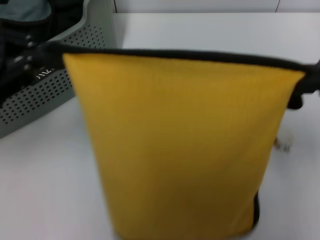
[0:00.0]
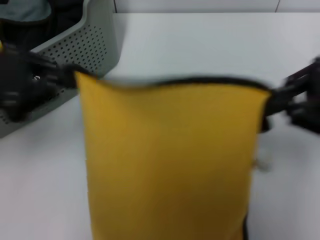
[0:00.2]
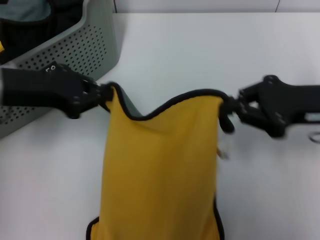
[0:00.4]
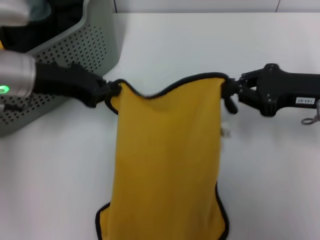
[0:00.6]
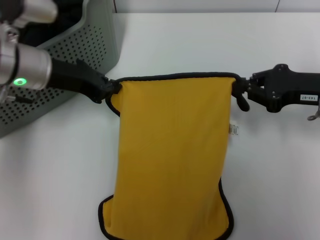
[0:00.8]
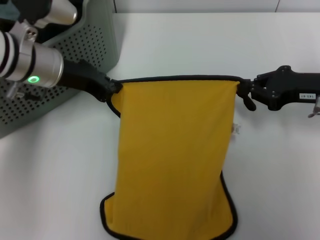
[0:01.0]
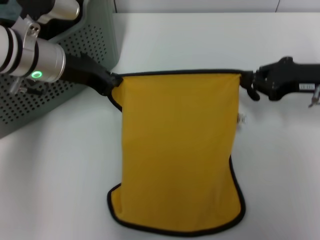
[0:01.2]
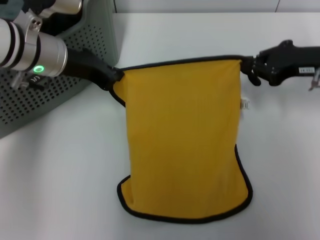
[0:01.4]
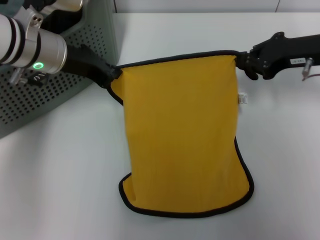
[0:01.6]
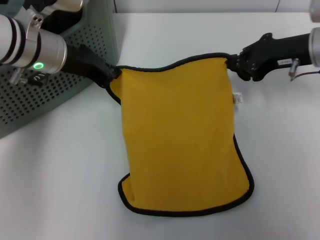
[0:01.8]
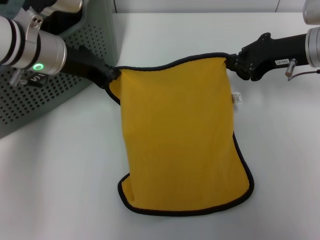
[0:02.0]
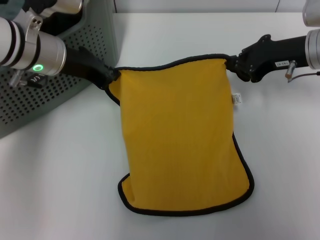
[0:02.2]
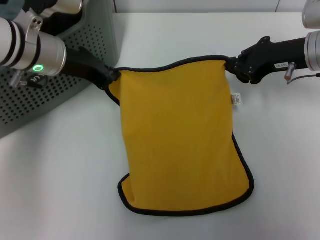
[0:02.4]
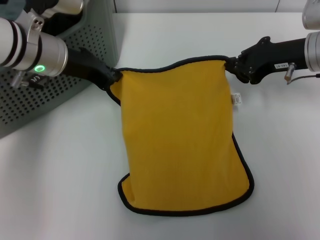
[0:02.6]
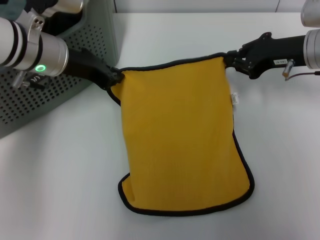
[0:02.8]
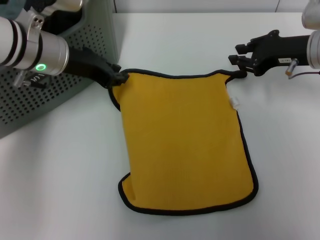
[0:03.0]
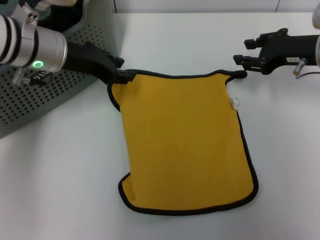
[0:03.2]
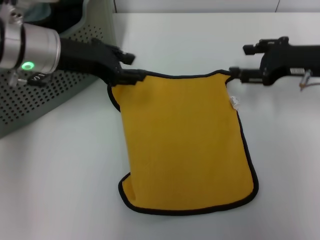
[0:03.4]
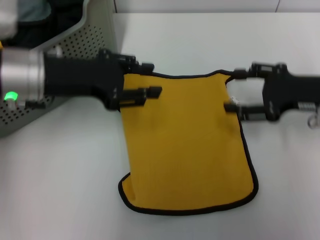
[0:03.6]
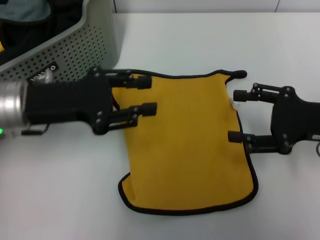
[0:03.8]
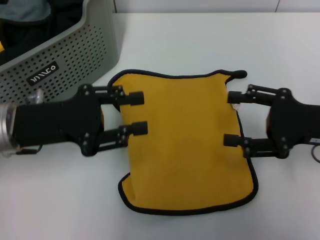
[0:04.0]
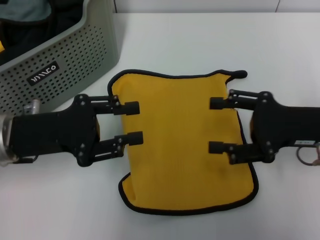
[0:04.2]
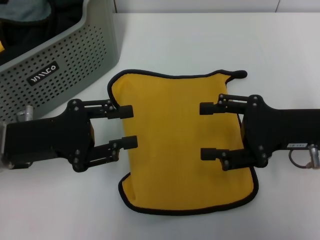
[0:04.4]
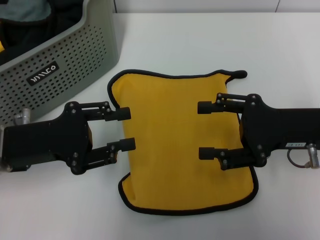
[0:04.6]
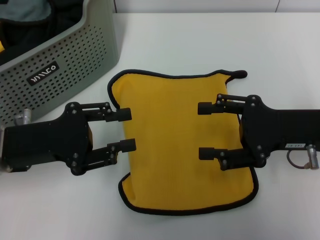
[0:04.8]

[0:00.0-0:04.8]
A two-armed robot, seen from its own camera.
Task of the whole recording: pick up the towel from the storage box and lay it flat on the table.
Step, 0:00.0 to 0:03.0: Spread the towel flat with the right gripper.
0:00.0 to 0:01.6: The right gripper is displaced forward and downward by roughly 15 cm. Meanwhile the left gripper shifts approximately 20 cm forward, to the right and downward.
0:01.6 to 0:03.2: The grippers move only a little.
0:03.2 to 0:04.8: The left gripper shifts roughly 15 cm backward, downward and to the left, and opens; the right gripper goes some 10 cm backward, and opens up.
